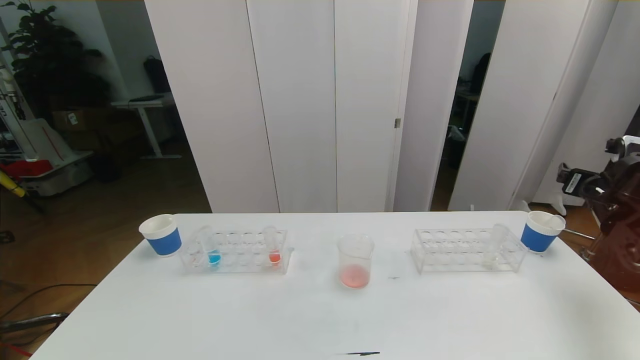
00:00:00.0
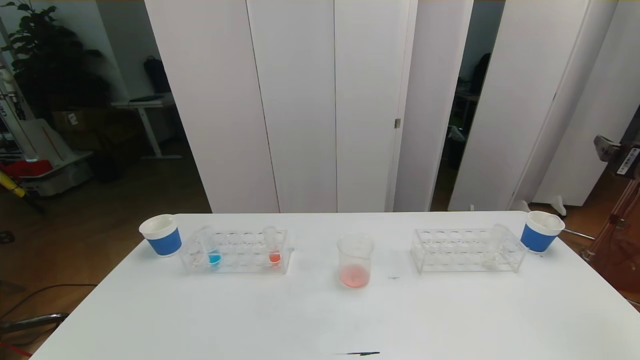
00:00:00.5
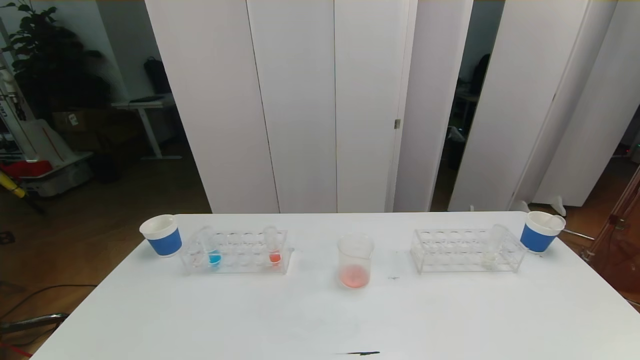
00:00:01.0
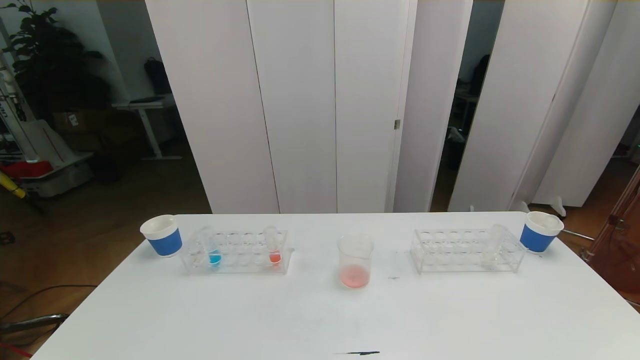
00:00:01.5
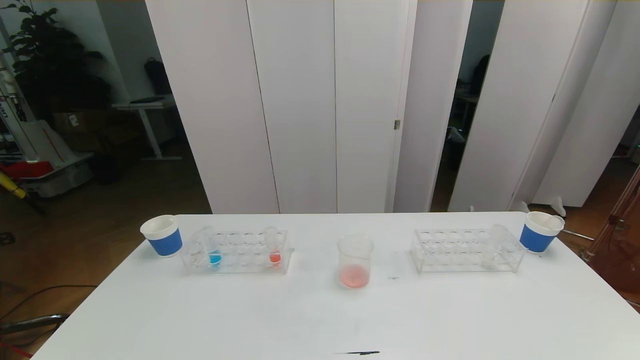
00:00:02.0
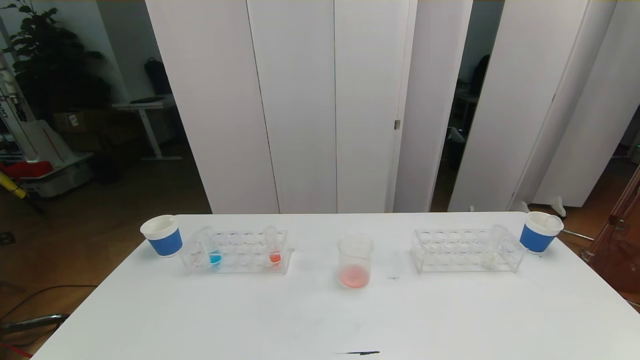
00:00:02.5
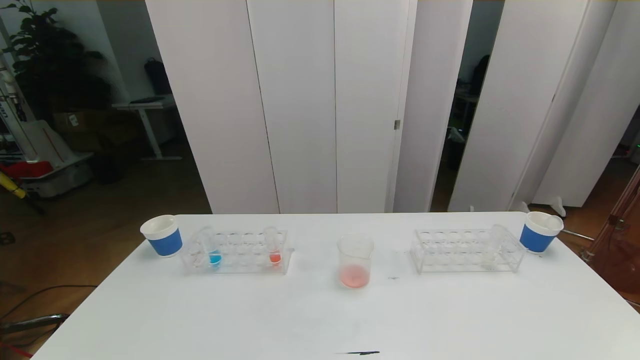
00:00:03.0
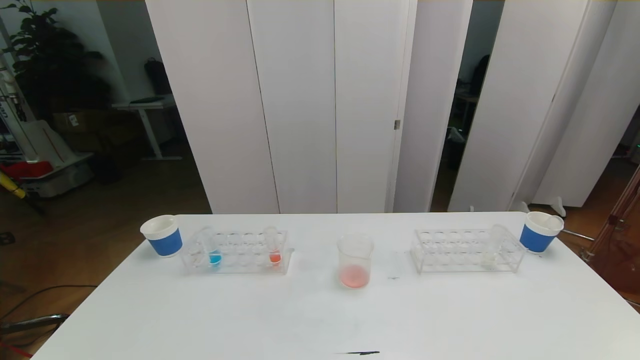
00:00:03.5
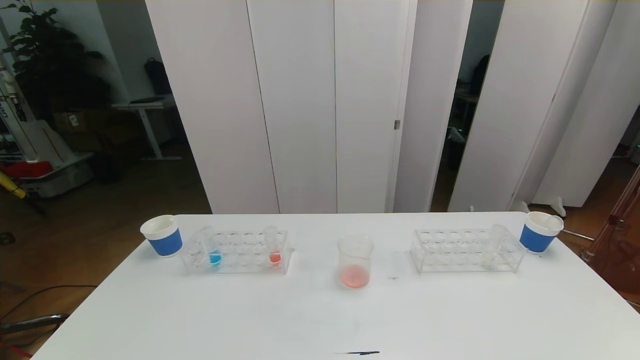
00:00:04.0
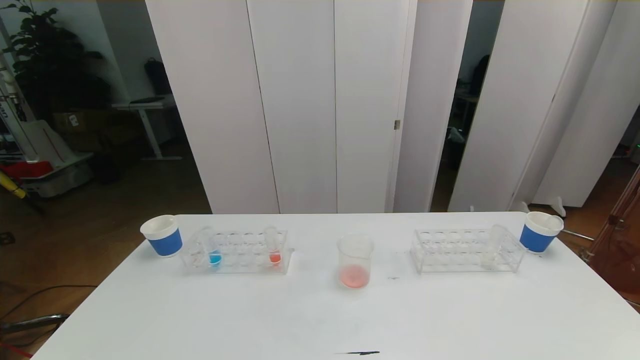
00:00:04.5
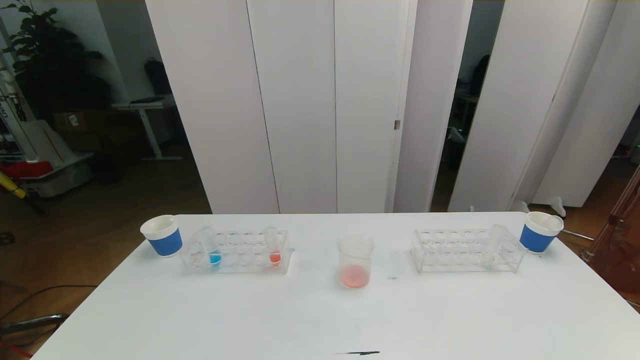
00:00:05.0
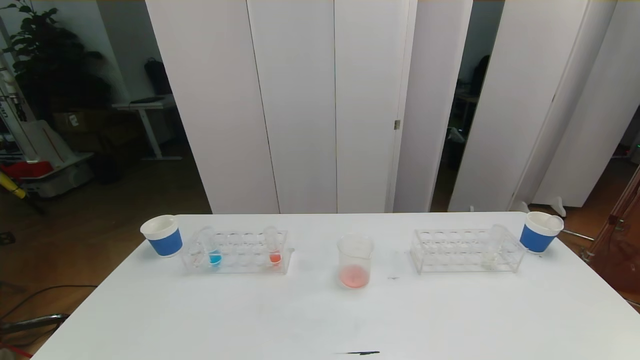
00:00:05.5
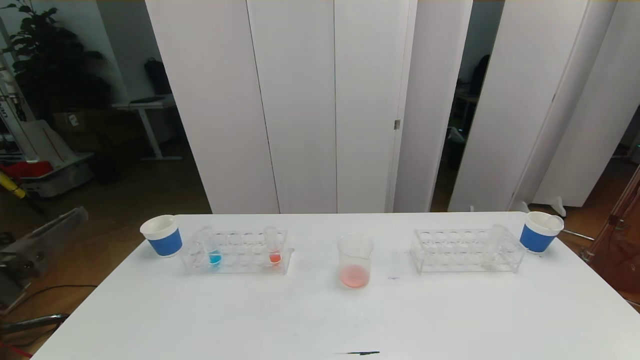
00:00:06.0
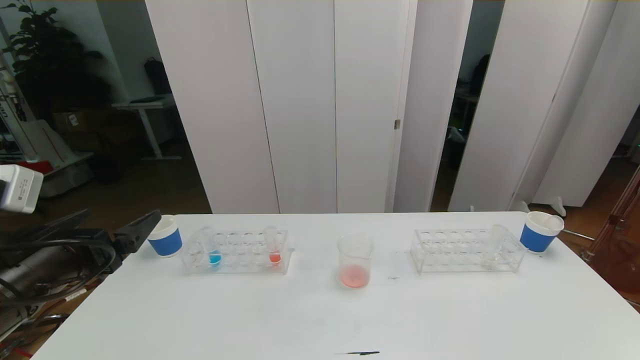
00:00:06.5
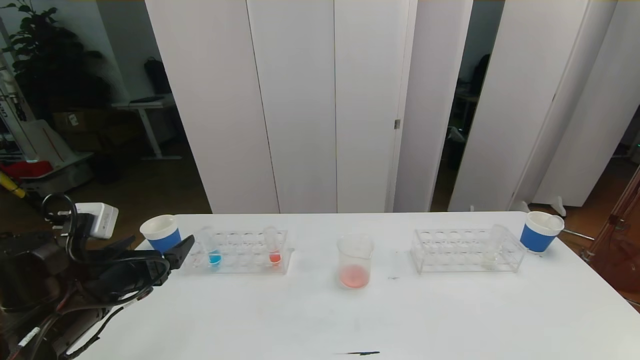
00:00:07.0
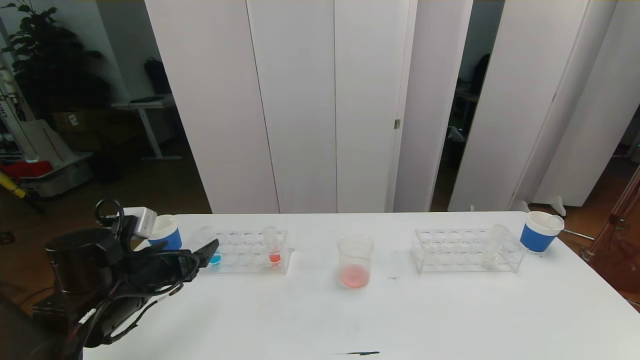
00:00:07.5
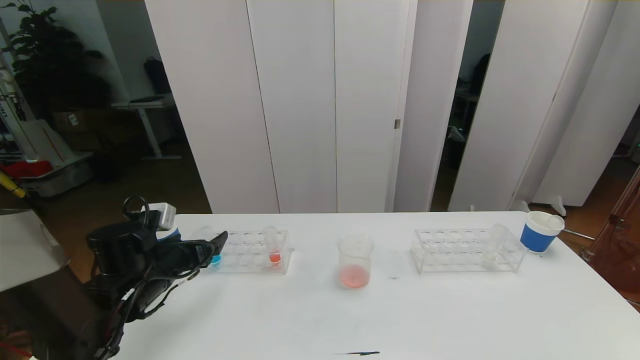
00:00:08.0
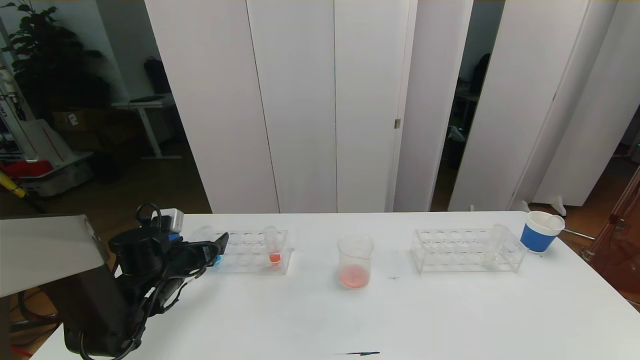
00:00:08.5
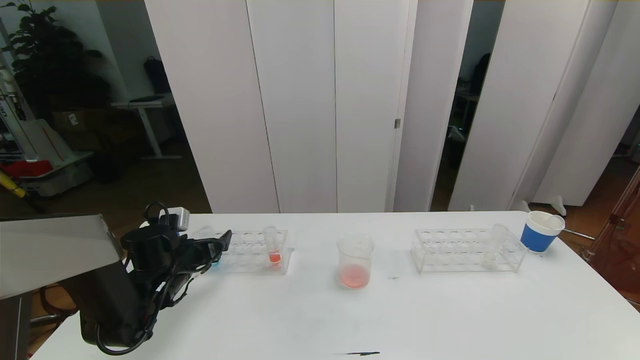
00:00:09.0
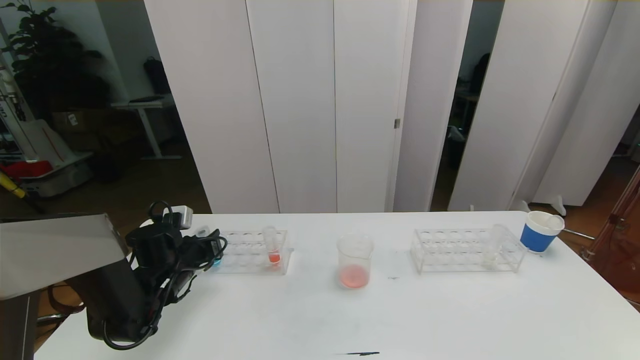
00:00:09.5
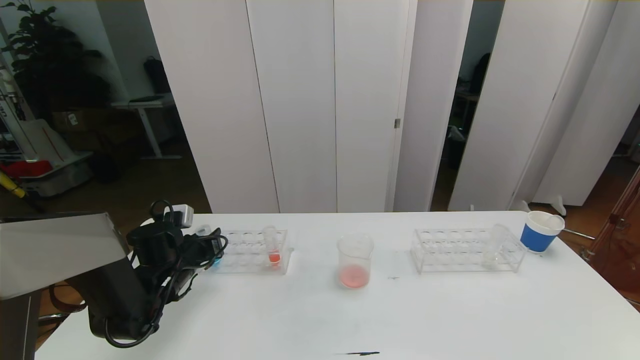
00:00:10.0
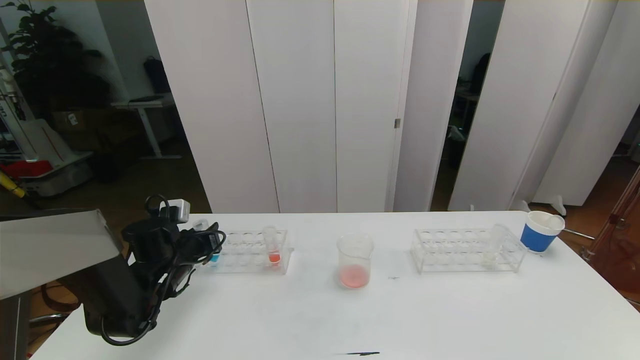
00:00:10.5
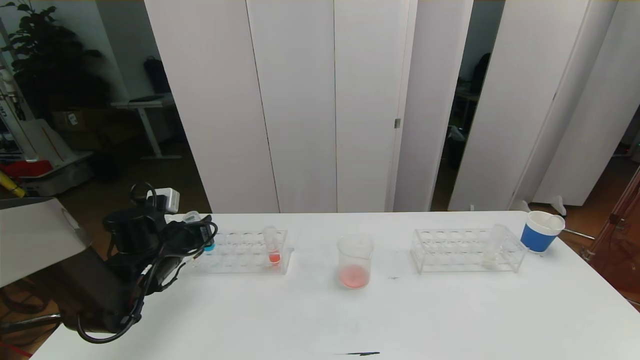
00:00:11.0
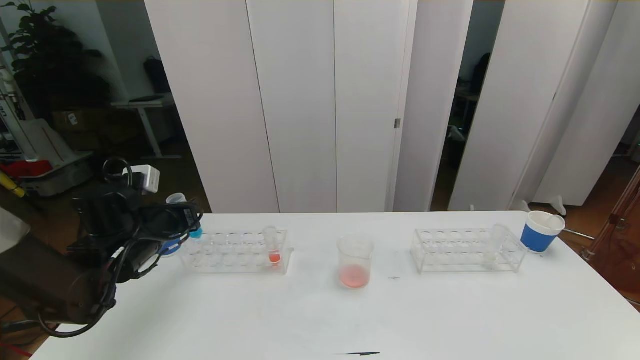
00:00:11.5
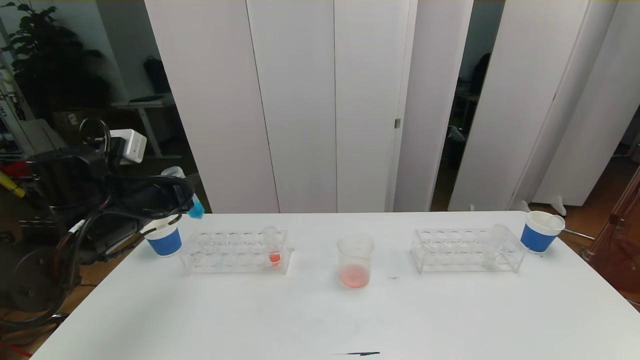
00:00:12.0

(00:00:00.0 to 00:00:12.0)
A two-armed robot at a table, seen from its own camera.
Task of the whole recording: pick up the test tube with red pigment the test tube with blue pigment and the test tube with white pigment by grippers and pour them into the beaker.
Step, 00:00:00.0 - 00:00:04.5: Pour the red reagent into the graduated cylinder and place the test tube into the paper cup.
00:00:00.0 - 00:00:02.0: The right gripper is displaced backward by approximately 40 cm.
00:00:06.0 - 00:00:08.0: The left gripper moves forward and downward, approximately 25 cm.
00:00:08.0 - 00:00:10.0: The left gripper is displaced forward by about 5 cm, and closes its fingers.
00:00:10.0 - 00:00:12.0: The left gripper shifts roughly 15 cm upward.

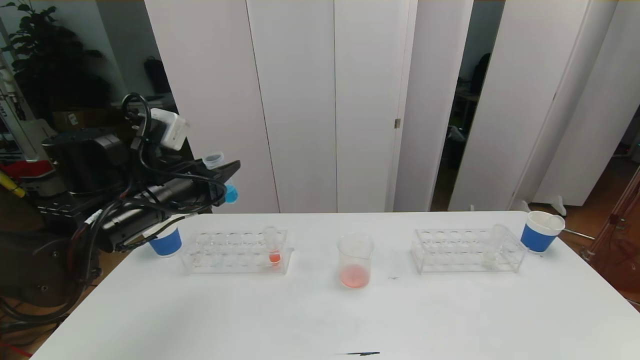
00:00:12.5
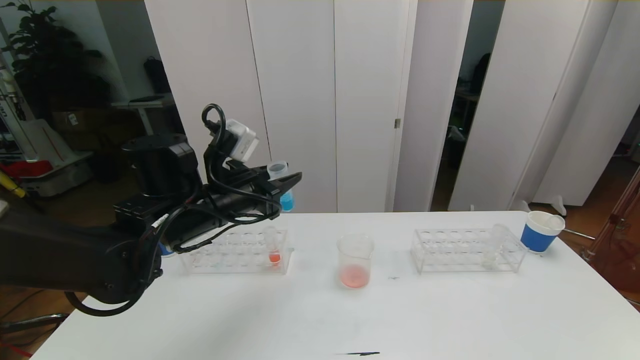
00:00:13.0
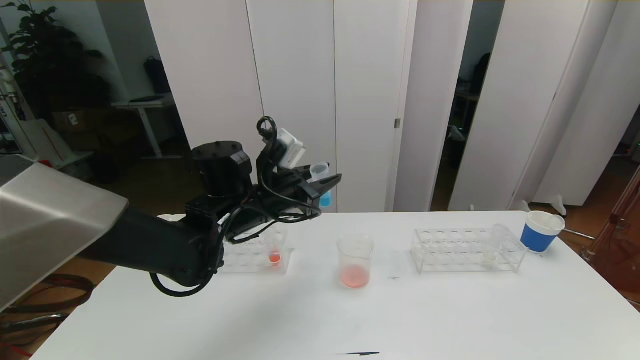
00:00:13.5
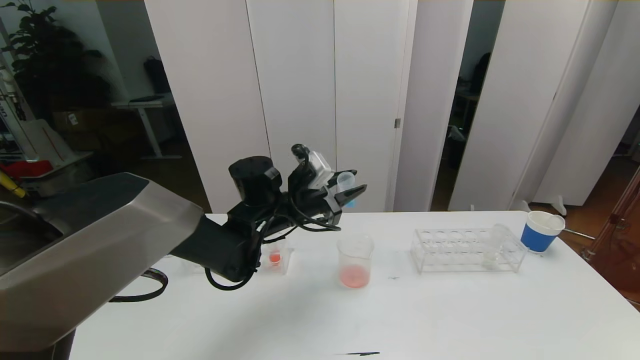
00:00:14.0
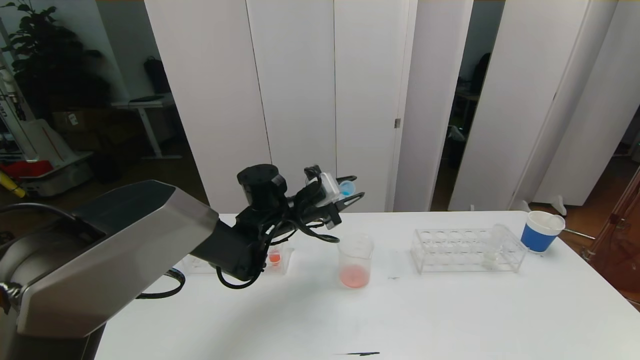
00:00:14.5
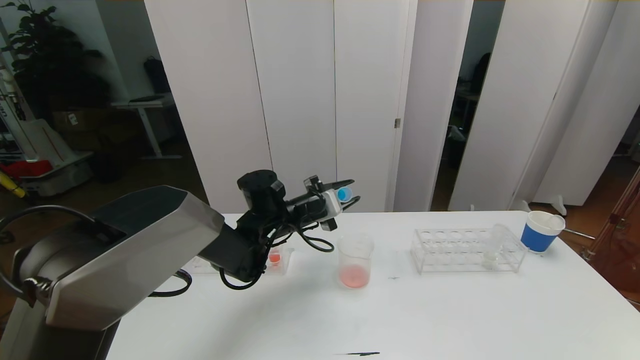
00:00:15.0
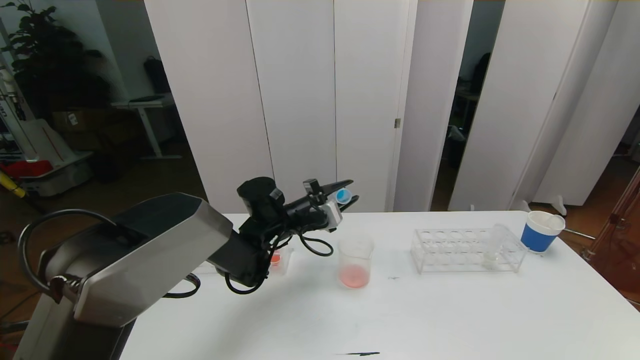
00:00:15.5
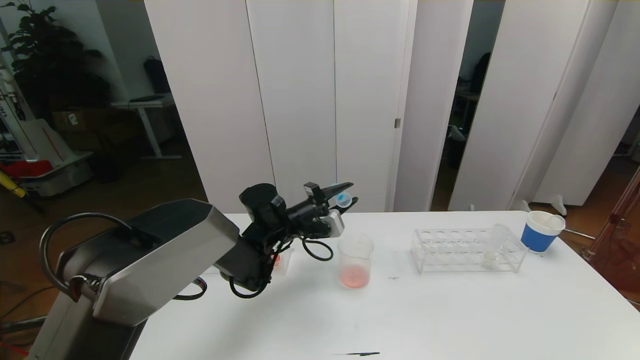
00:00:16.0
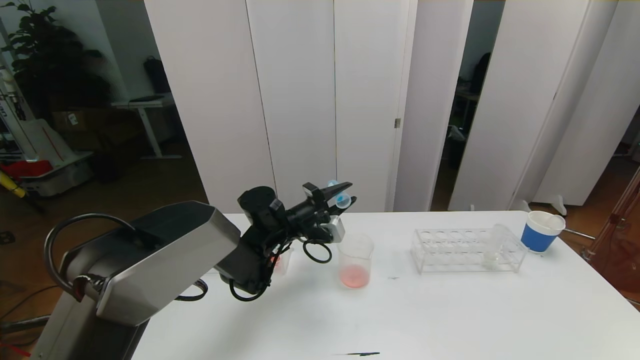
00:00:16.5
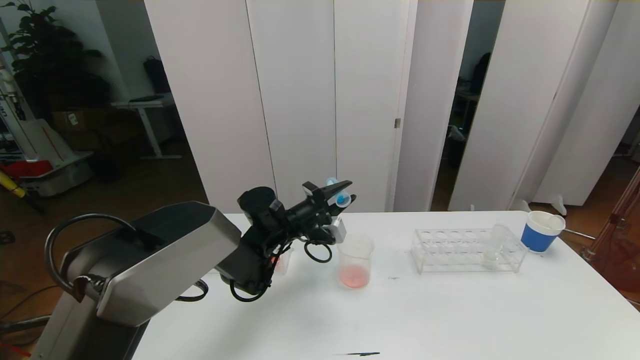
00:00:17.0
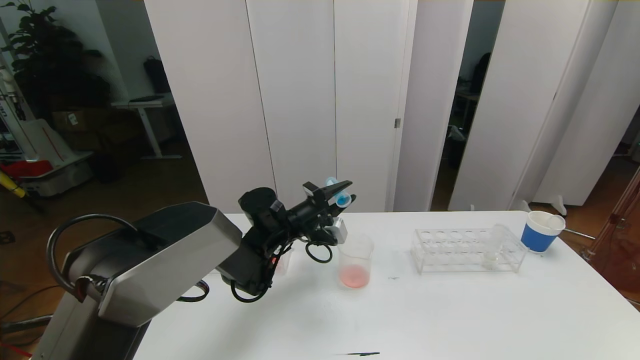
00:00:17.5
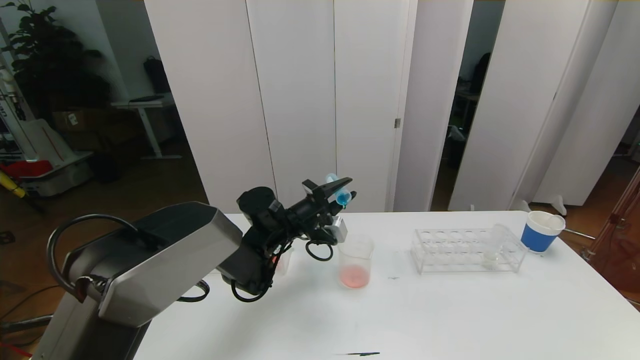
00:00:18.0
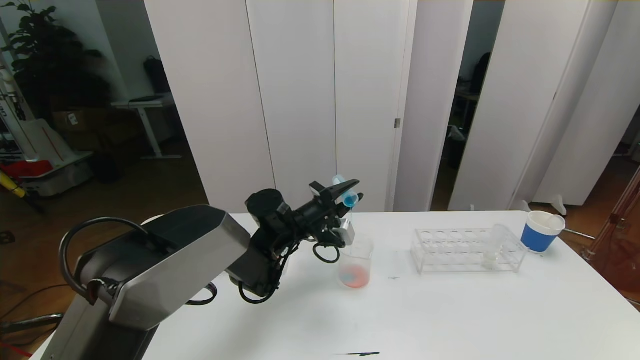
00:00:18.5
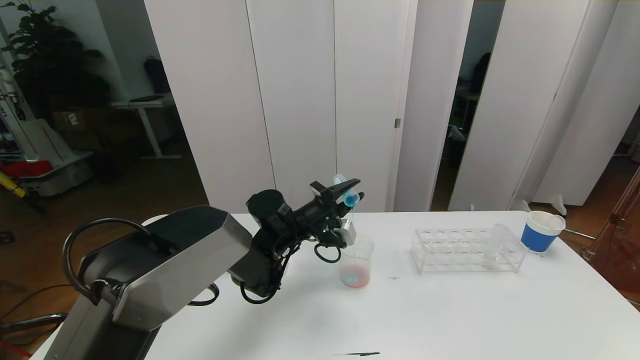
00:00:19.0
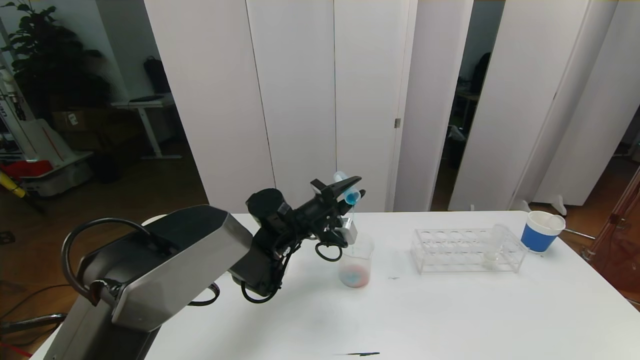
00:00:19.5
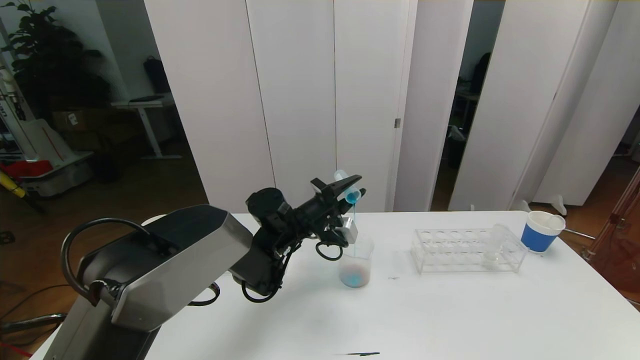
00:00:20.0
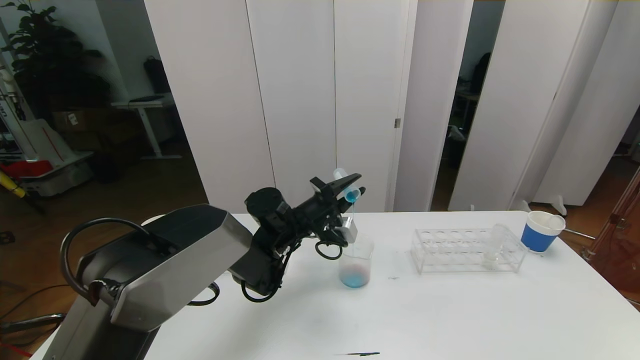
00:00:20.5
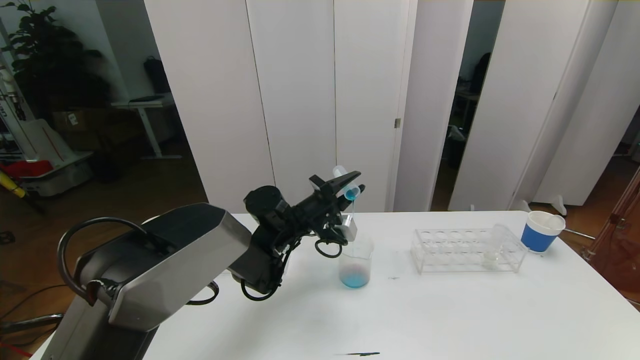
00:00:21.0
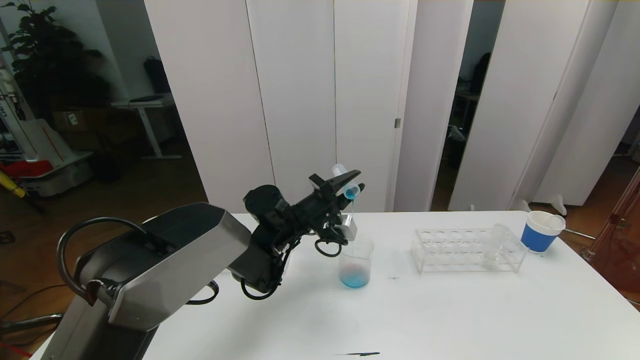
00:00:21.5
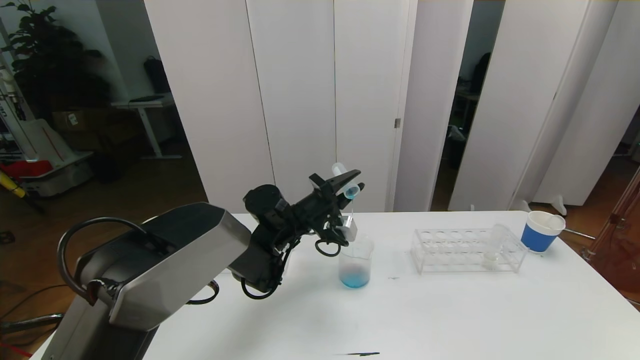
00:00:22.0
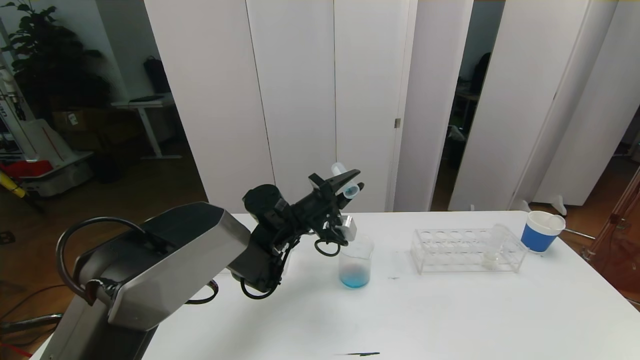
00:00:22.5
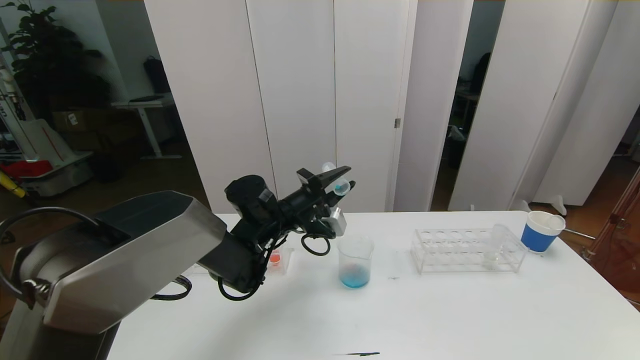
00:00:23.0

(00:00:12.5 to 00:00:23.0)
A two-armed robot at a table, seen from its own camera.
Task of the whole recording: pick up the test tube with red pigment the test tube with blue pigment and the test tube with white pigment by grippers and pour them into the beaker.
00:00:12.5 - 00:00:14.5: The left gripper goes approximately 20 cm to the right, forward and downward.
00:00:16.5 - 00:00:19.0: There are only small adjustments of the grippers.
00:00:19.0 - 00:00:21.0: Neither gripper changes place.
00:00:21.0 - 00:00:23.0: The grippers make only small movements.
